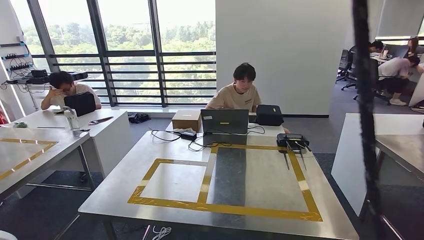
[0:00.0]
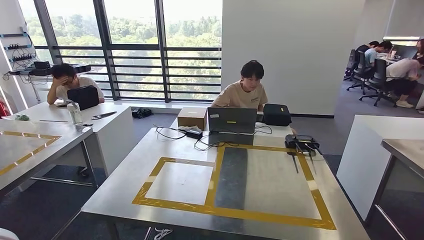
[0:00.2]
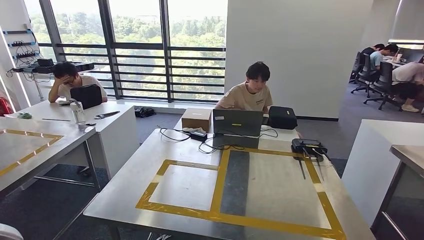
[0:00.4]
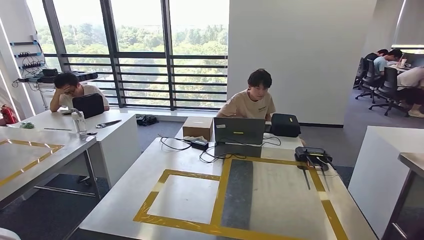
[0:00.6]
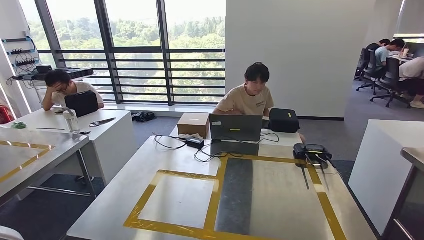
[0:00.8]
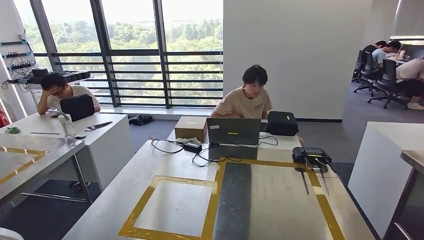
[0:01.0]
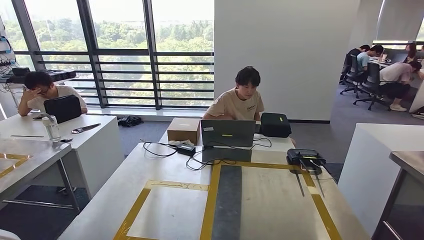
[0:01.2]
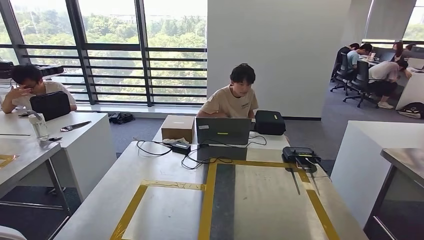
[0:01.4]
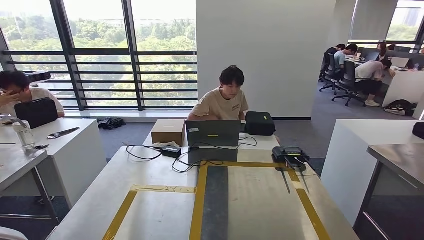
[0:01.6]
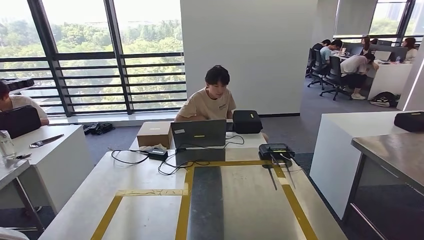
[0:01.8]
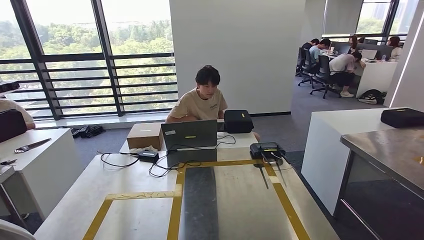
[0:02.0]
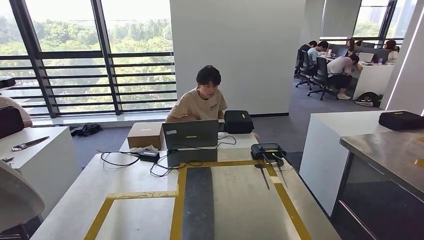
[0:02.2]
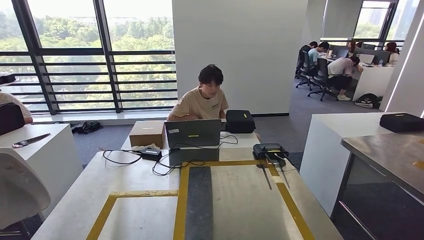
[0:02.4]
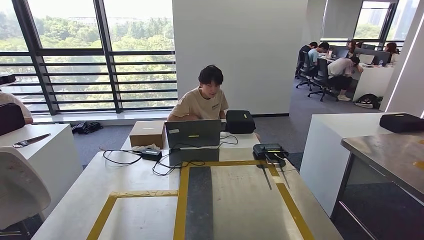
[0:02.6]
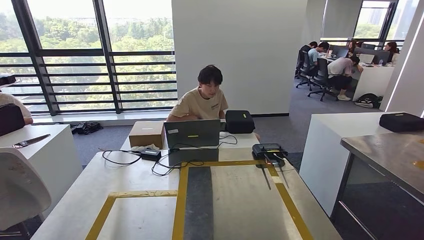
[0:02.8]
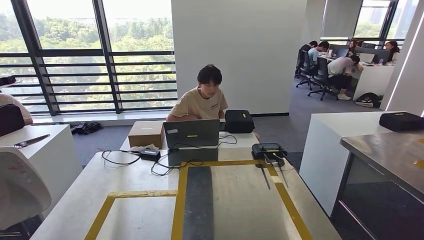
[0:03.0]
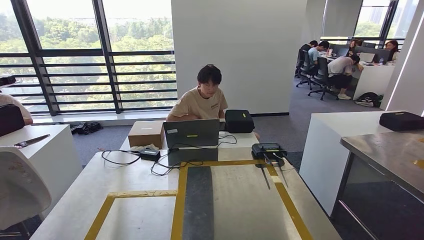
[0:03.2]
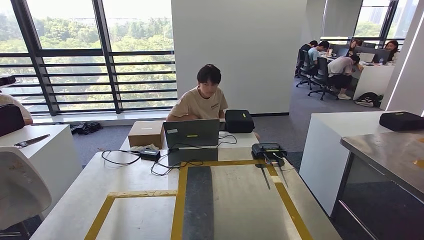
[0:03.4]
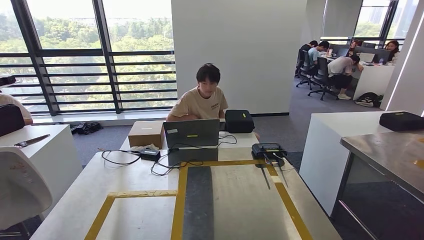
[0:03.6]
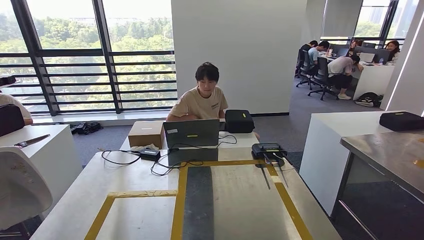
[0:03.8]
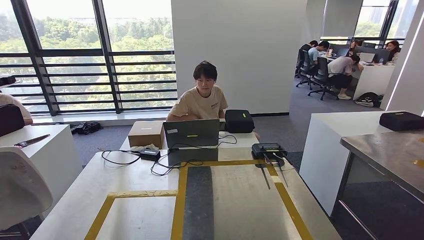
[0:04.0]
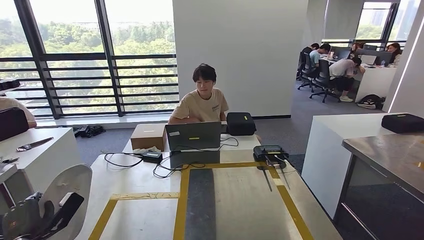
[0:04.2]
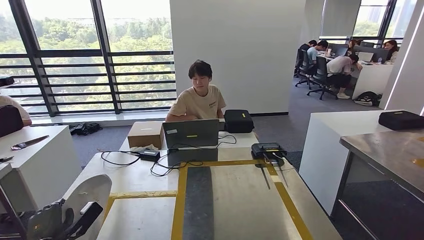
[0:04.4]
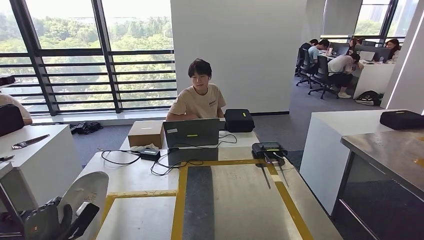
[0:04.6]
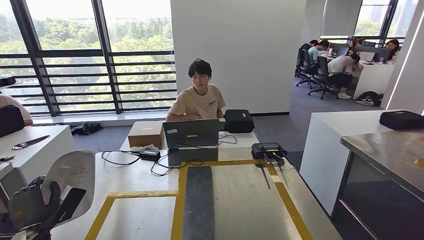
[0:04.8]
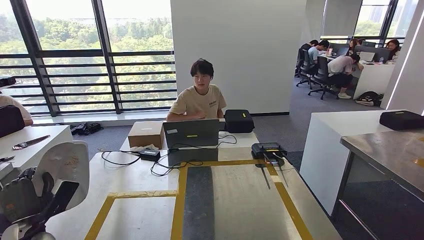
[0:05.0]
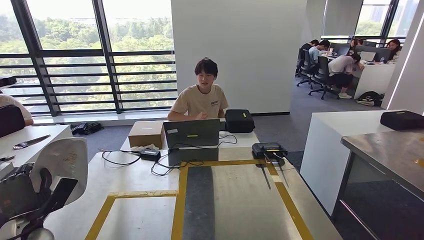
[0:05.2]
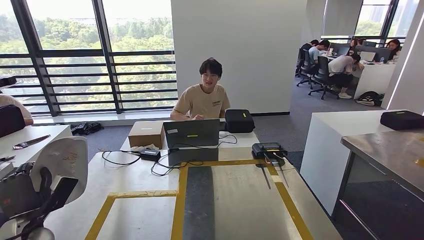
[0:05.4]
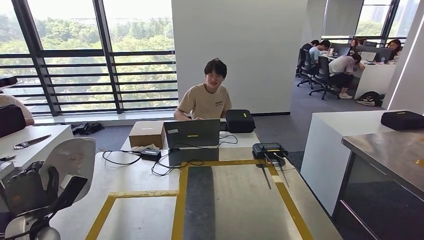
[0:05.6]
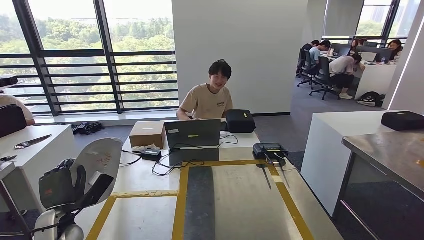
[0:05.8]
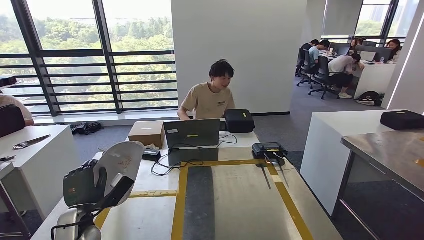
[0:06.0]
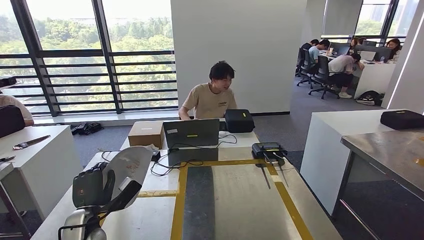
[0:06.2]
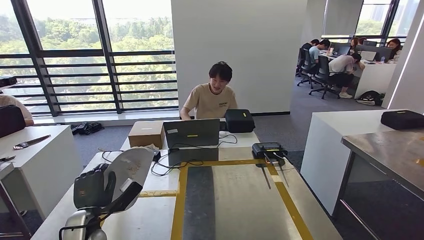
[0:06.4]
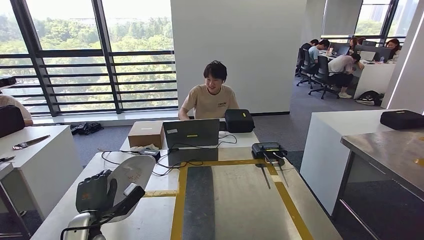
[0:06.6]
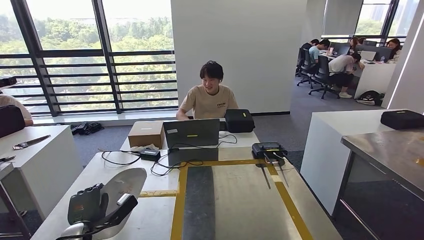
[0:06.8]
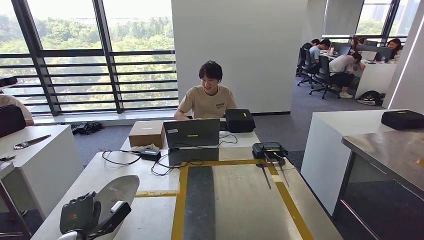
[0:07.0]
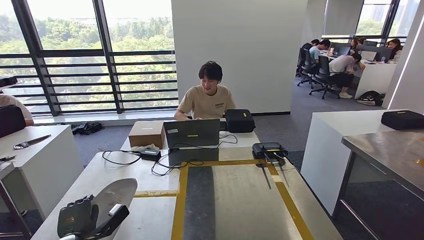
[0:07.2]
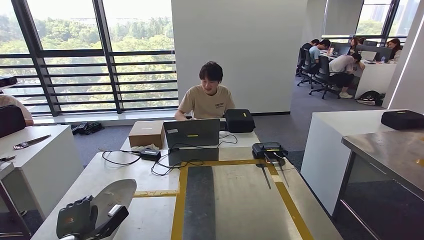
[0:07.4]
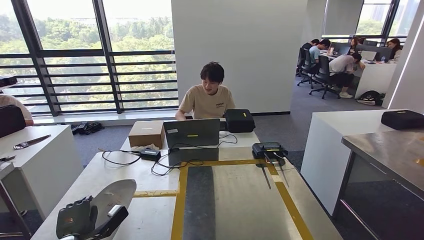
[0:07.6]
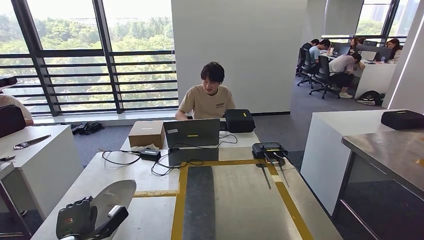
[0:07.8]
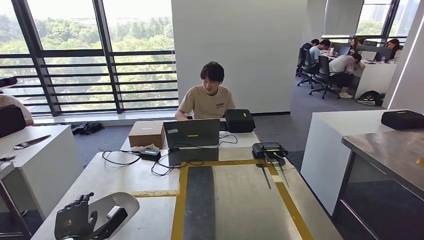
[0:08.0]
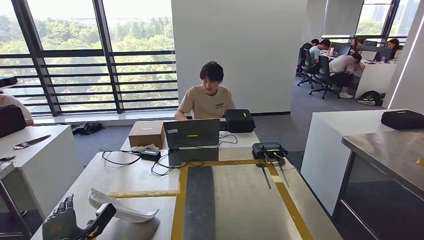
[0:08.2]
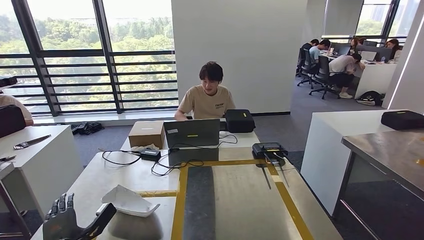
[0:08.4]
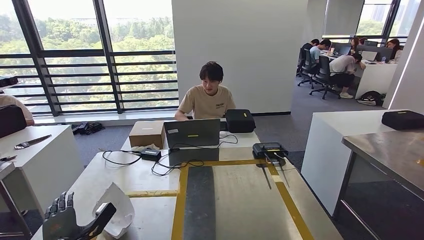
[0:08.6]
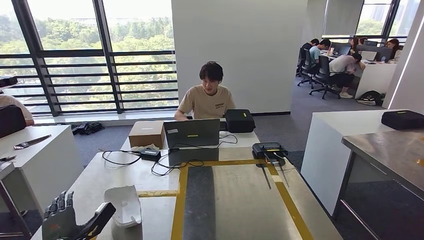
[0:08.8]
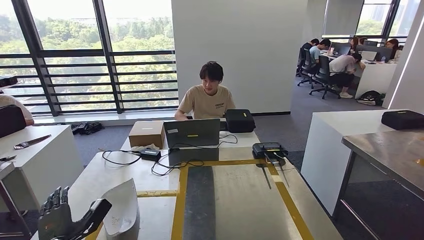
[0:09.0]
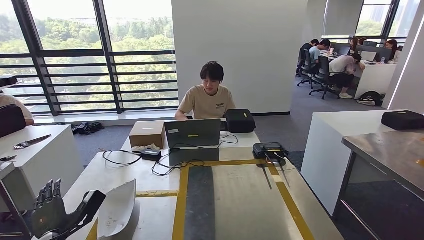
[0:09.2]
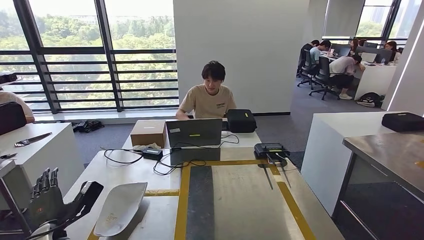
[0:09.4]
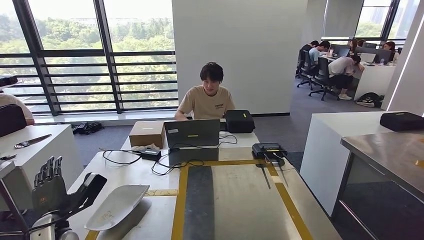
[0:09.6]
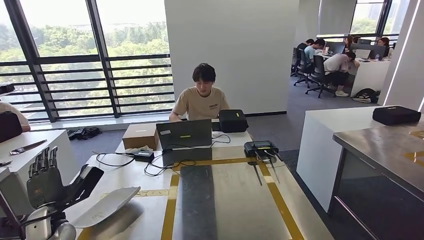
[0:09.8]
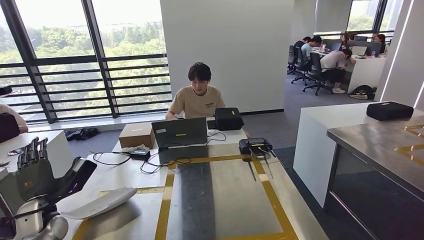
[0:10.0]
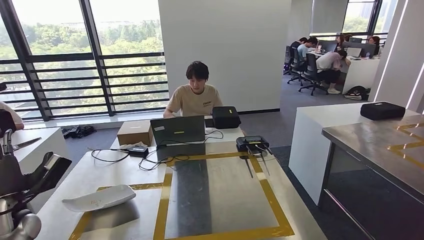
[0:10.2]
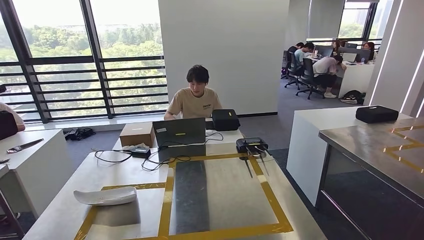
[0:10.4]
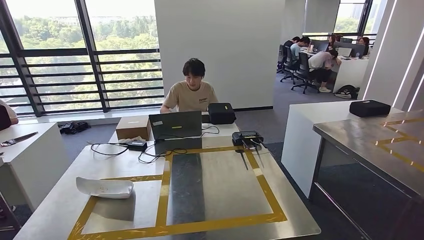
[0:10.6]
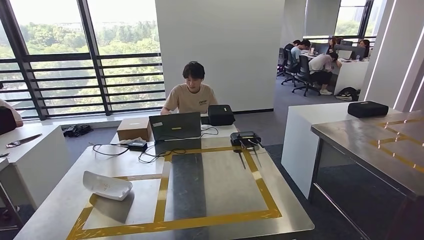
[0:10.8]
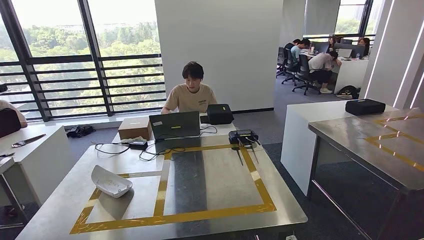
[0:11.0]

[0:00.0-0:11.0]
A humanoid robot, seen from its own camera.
Step, 0:00.0 to 0:09.4: Insert the small component into the corresponding slot on the workbench.
0:03.2 to 0:04.8: The left hand is displaced to the right, downward and forward by some 10 cm.
0:04.8 to 0:06.2: The left hand shifts about 10 cm to the right.
0:06.2 to 0:07.8: The left hand shifts roughly 10 cm downward and to the left.

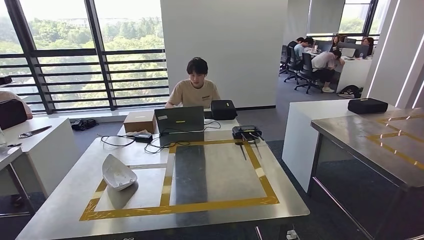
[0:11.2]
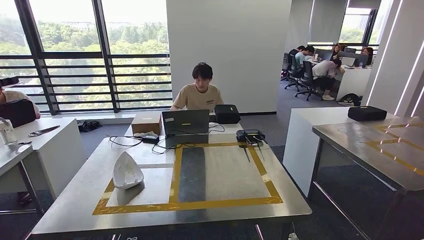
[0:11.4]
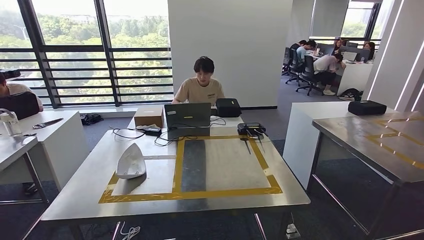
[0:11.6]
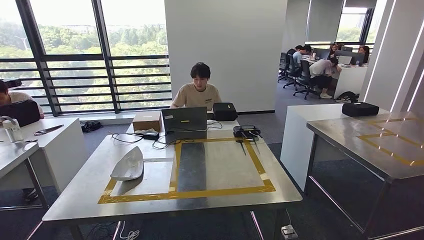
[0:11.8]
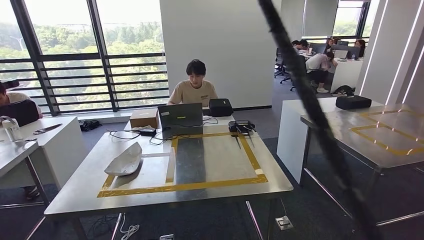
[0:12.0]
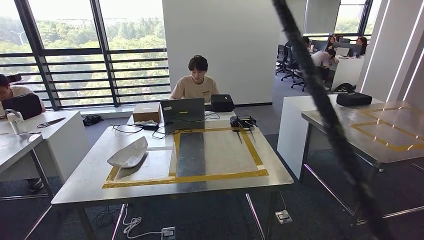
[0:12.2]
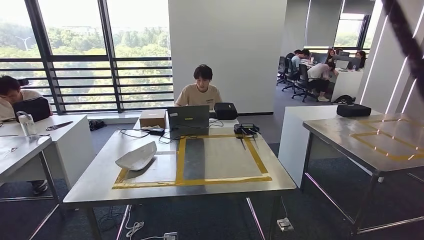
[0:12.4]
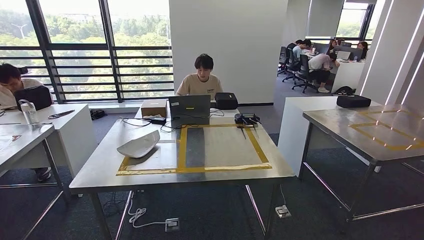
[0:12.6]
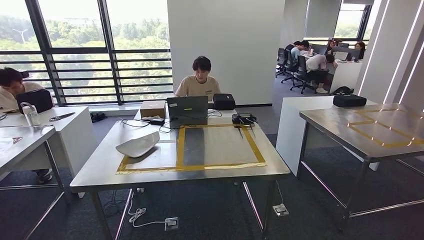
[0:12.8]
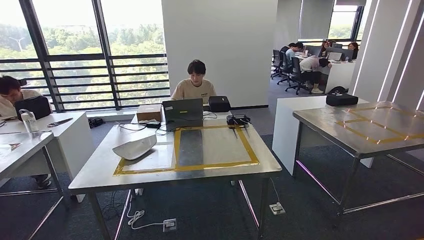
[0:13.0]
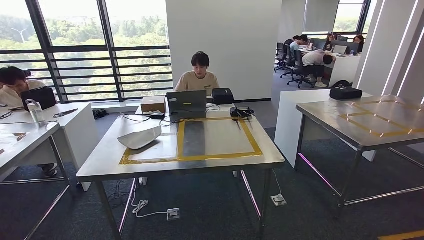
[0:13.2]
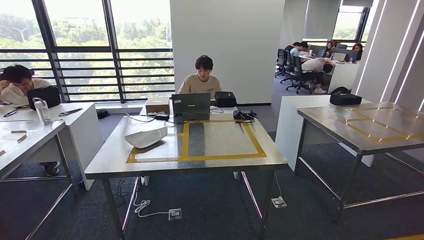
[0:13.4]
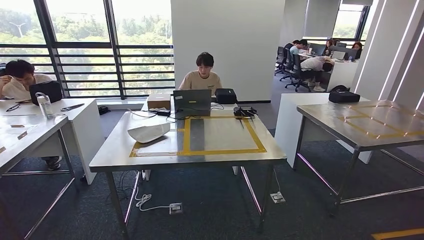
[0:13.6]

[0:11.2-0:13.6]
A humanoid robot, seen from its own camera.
Step, 0:11.2 to 0:13.6: Return to the initial position at the workbench.
